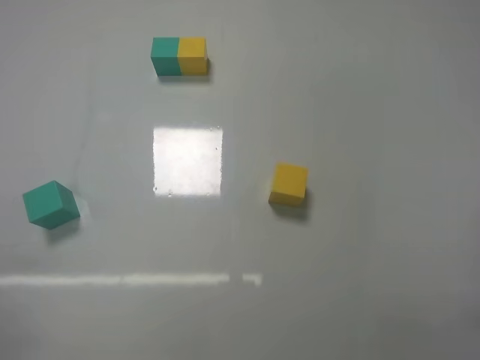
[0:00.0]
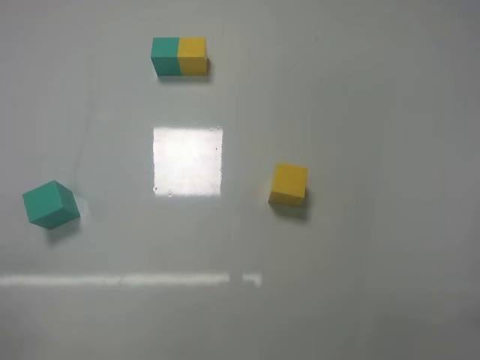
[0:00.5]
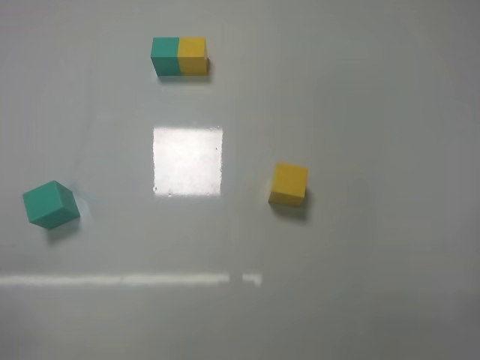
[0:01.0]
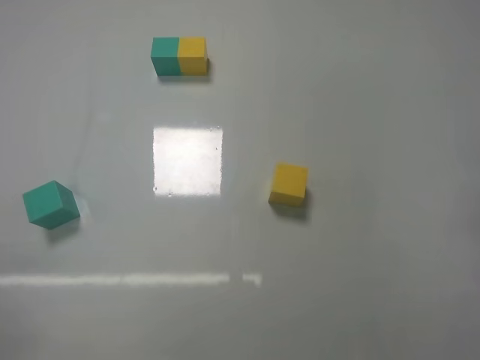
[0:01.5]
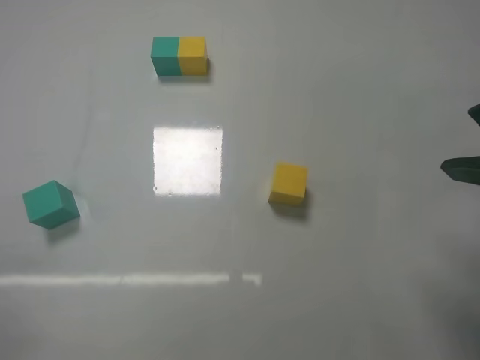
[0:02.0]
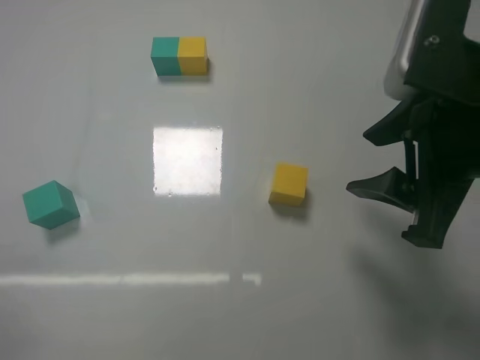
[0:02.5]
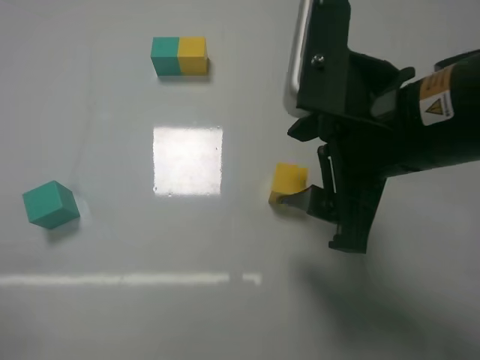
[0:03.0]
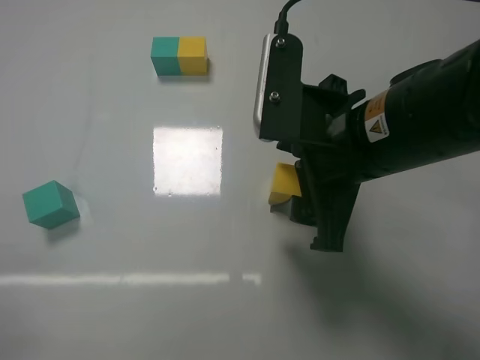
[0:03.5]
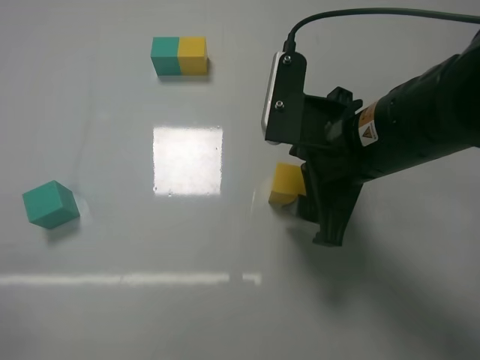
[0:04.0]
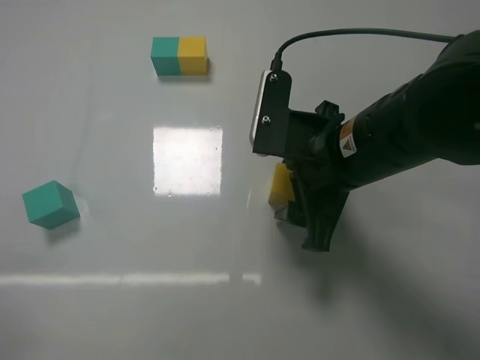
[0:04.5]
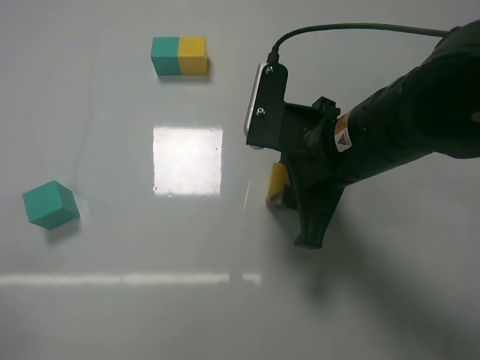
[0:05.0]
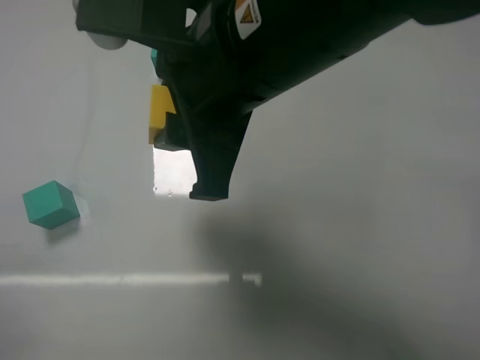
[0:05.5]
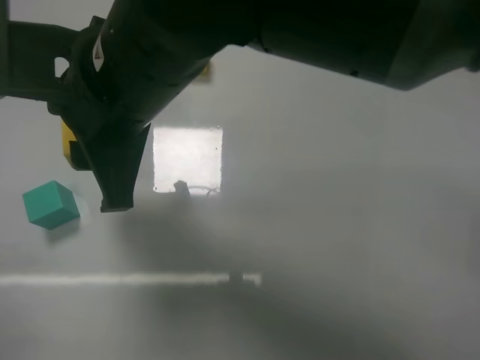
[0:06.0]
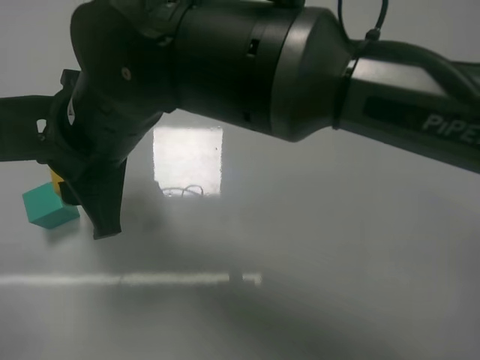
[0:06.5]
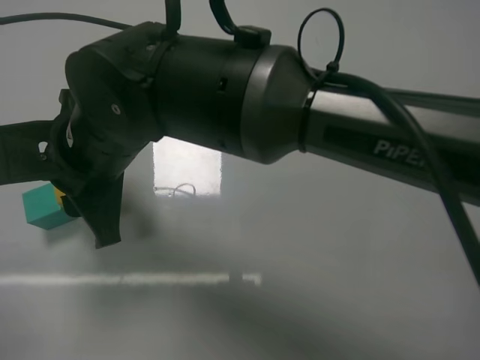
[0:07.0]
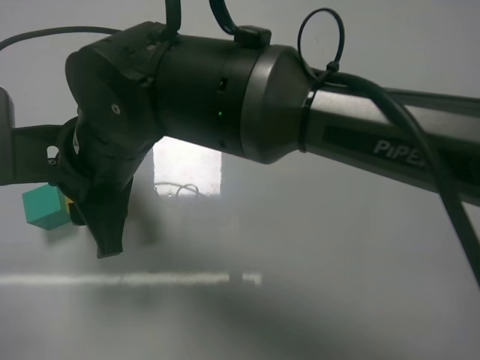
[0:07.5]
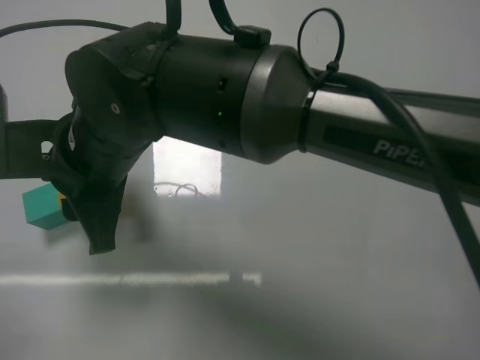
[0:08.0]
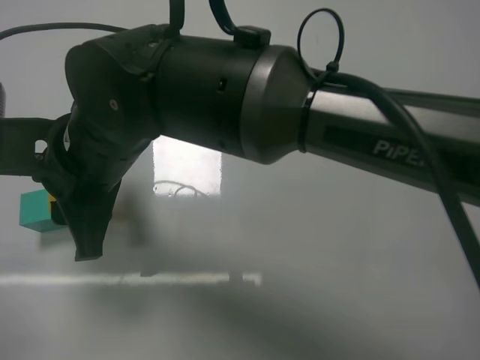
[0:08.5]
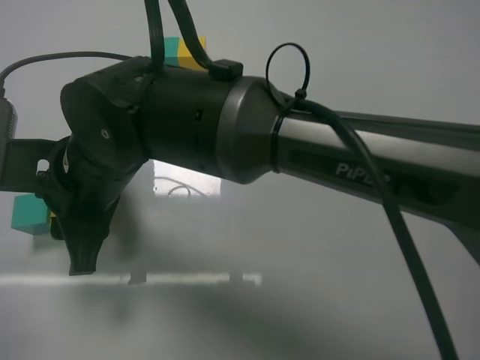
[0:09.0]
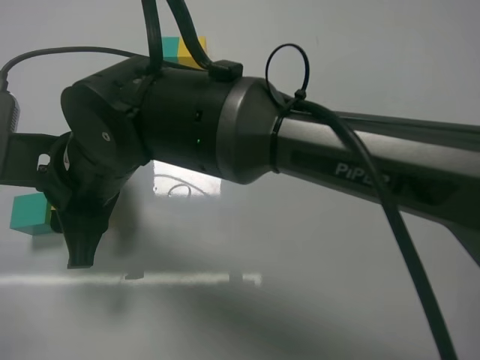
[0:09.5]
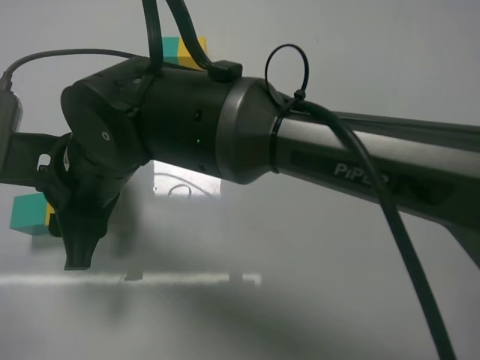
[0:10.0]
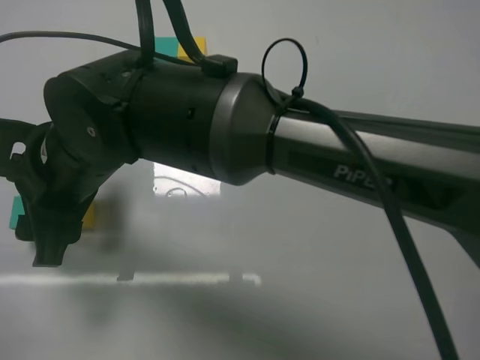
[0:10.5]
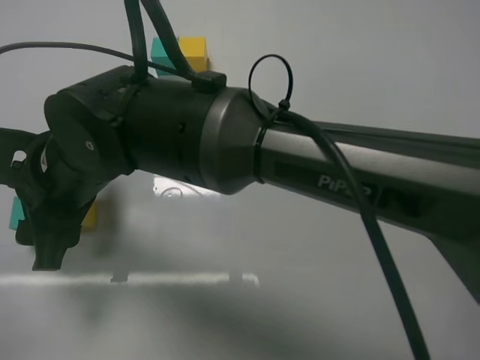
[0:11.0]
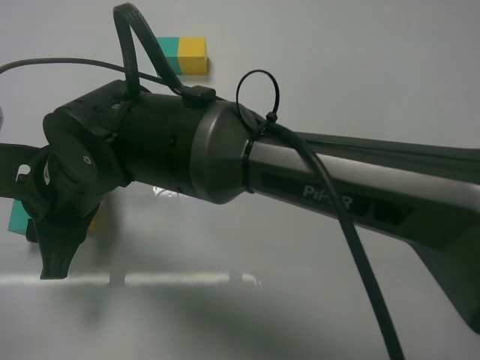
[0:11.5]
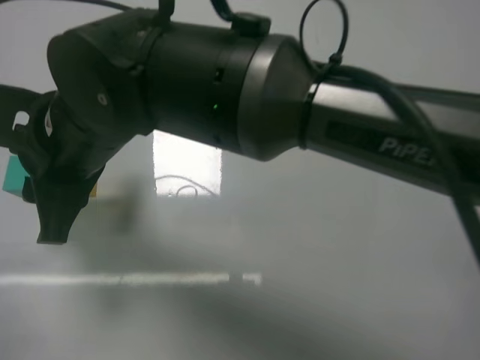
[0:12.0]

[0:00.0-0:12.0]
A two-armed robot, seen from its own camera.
Task of the whole recording: According to the building block template in front, assemble the scattered blocks together.
Step, 0:00.0 to 0:04.5: Grasp the yellow block with right gripper.
Step, 0:05.0 to 0:10.0: Put the yellow cube on the right of the green cube with the right gripper.
0:00.0 to 0:02.0: The right gripper goes roughly 20 cm forward, upward and to the left.
0:02.0 to 0:04.0: The right gripper shifts roughly 15 cm to the left, forward and downward, and opens up.
0:04.0 to 0:06.0: The right gripper goes roughly 20 cm to the left, and closes its fingers.
0:06.0 to 0:08.0: The right gripper moves downward, some 5 cm.
0:10.0 to 0:12.0: The right gripper shifts by about 5 cm, and opens, then closes once more.

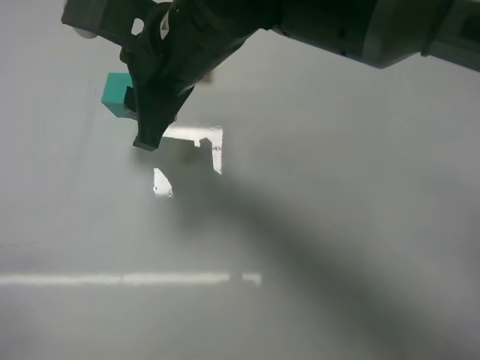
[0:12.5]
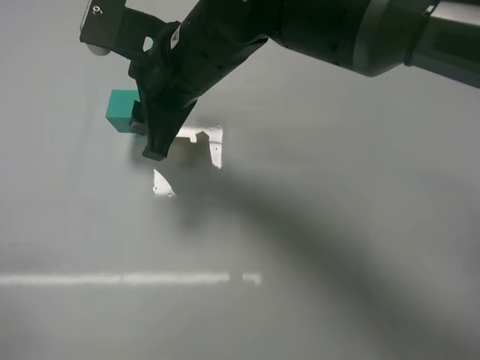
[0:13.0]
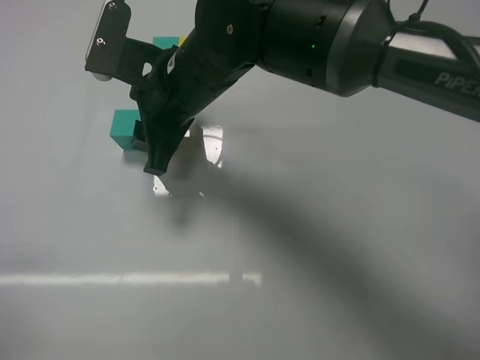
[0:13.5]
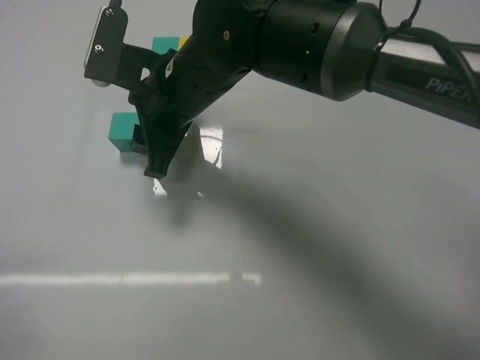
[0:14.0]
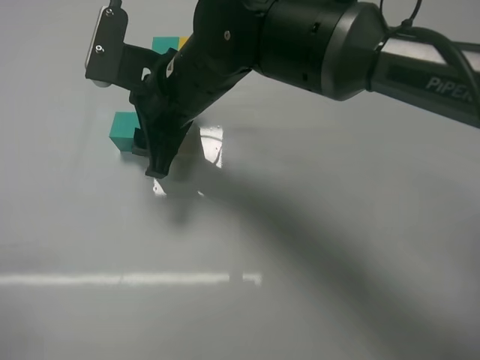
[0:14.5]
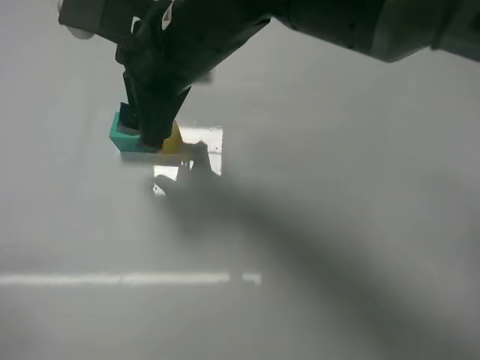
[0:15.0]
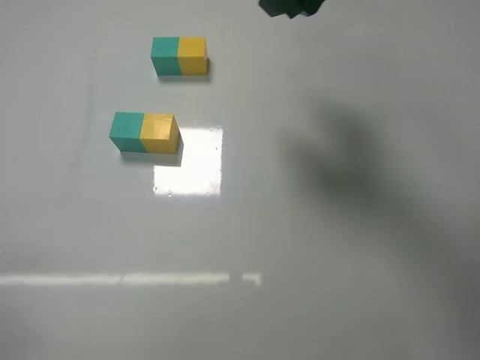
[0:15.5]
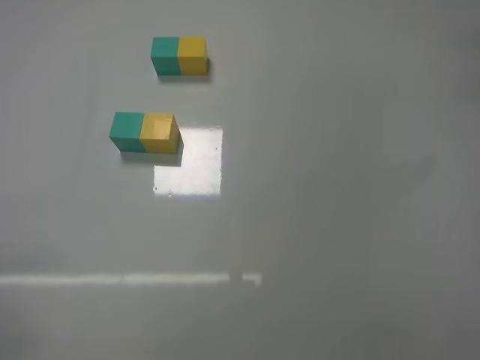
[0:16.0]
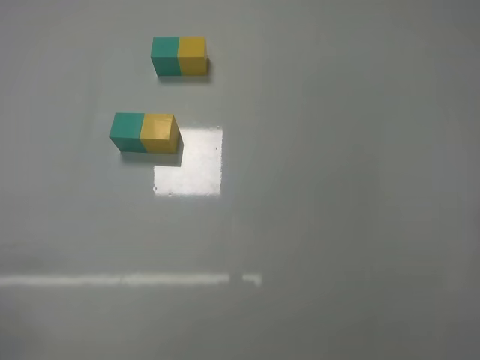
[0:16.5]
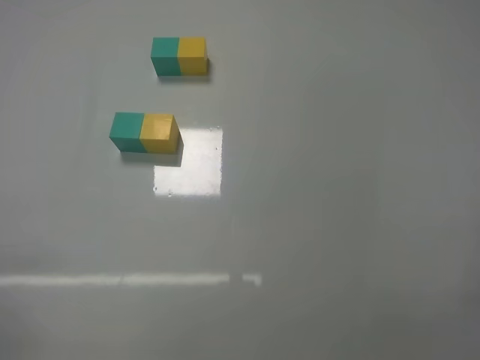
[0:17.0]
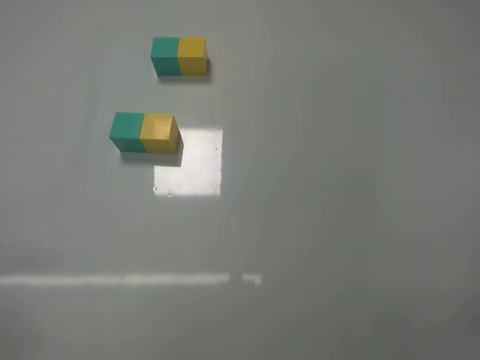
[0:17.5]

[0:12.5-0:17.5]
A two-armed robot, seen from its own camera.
Task of the whole recording: According to the building block template in front, assemble the scattered blocks together.
Step, 0:12.5 to 0:14.5: Put the yellow cube and green cube in the center of the table with the right gripper.
0:12.5 to 0:15.0: The right gripper opens up.
0:15.0 to 0:17.5: The right gripper goes roughly 40 cm to the right and backward.

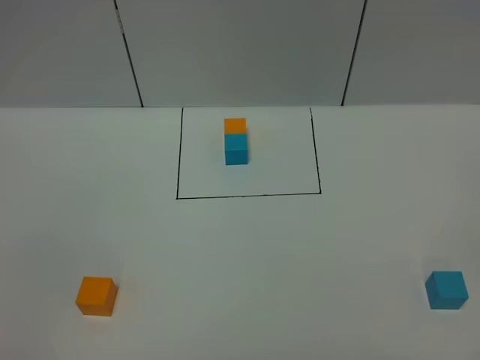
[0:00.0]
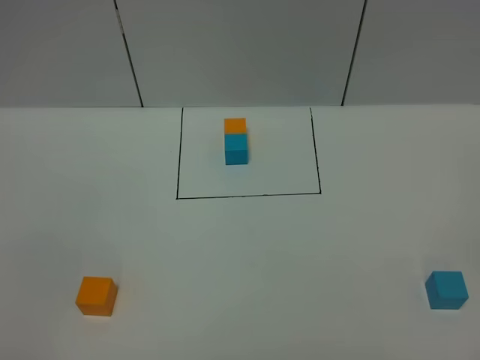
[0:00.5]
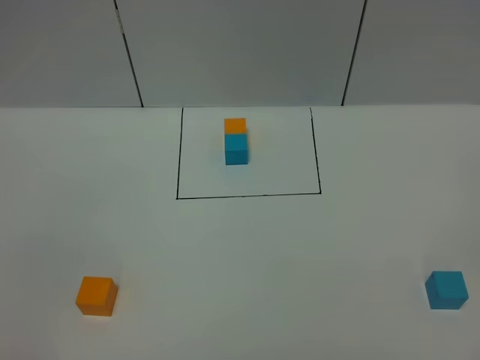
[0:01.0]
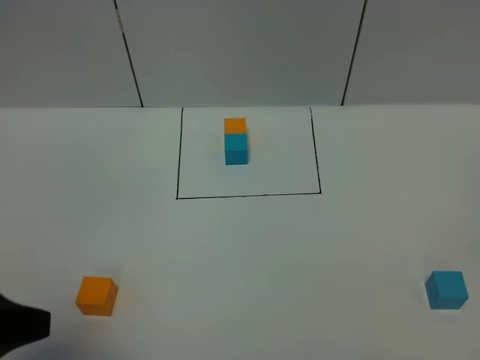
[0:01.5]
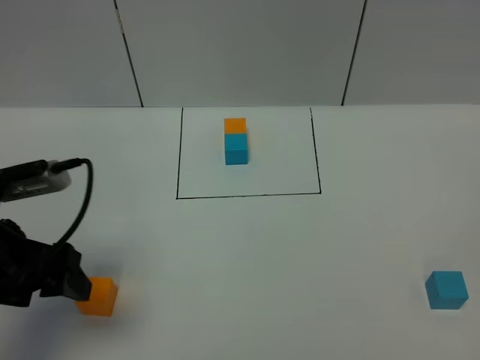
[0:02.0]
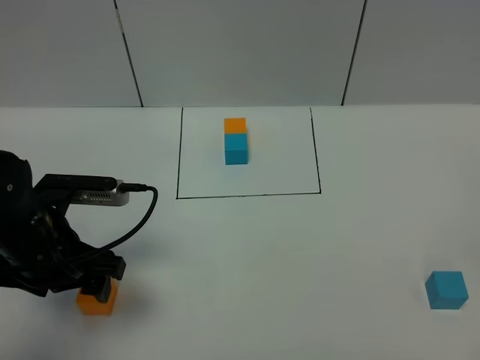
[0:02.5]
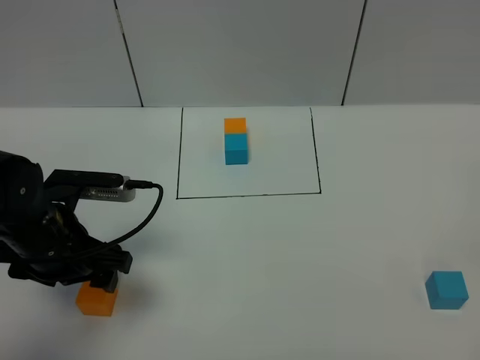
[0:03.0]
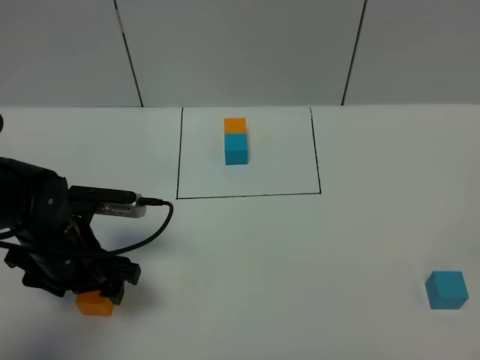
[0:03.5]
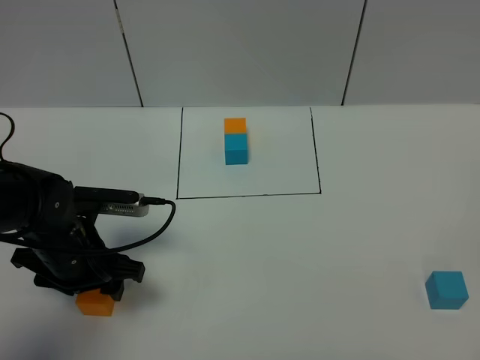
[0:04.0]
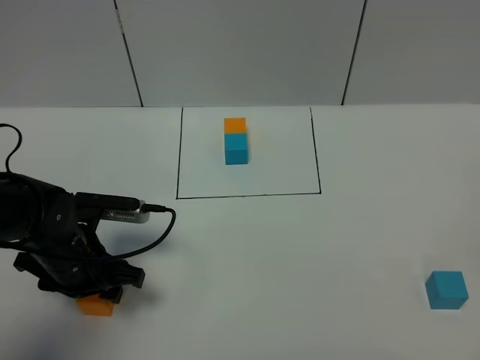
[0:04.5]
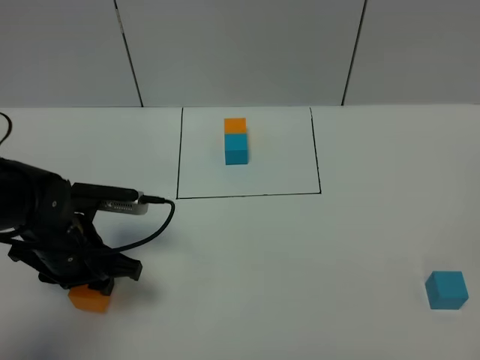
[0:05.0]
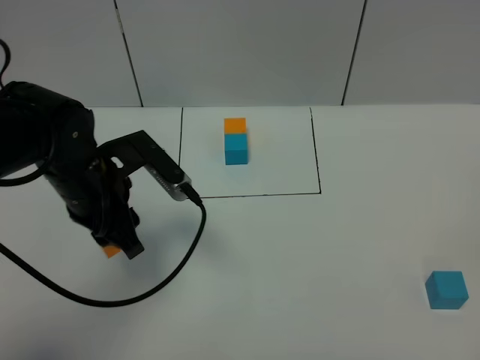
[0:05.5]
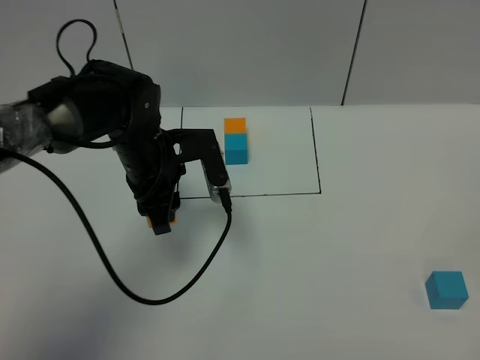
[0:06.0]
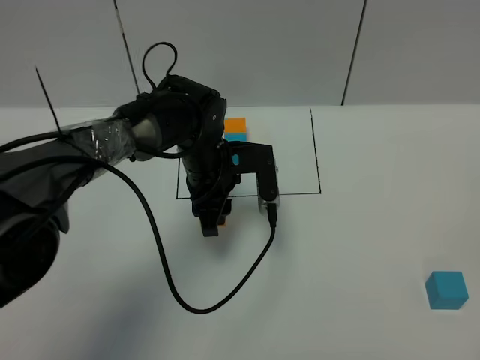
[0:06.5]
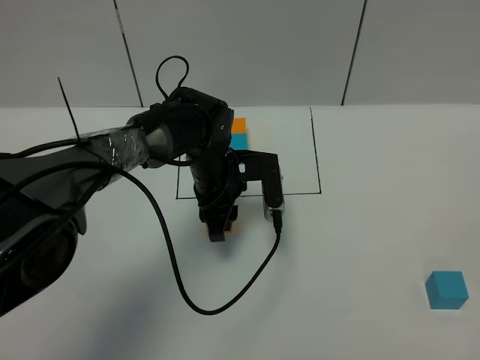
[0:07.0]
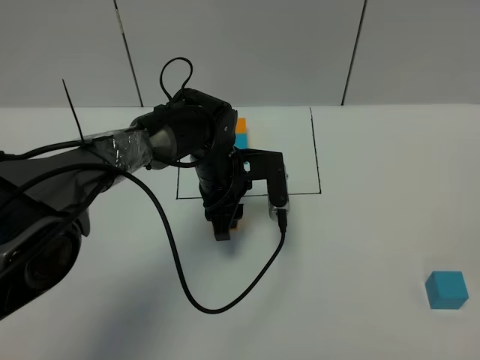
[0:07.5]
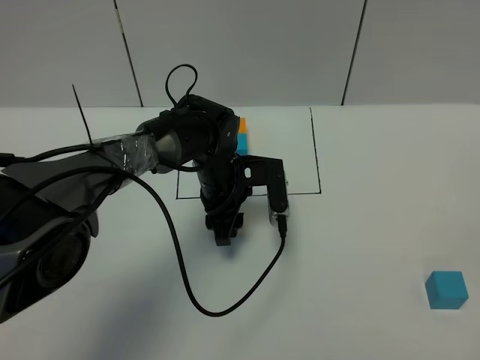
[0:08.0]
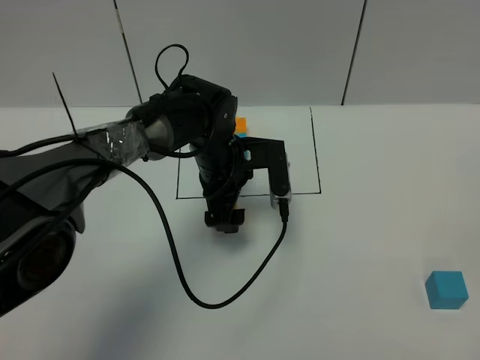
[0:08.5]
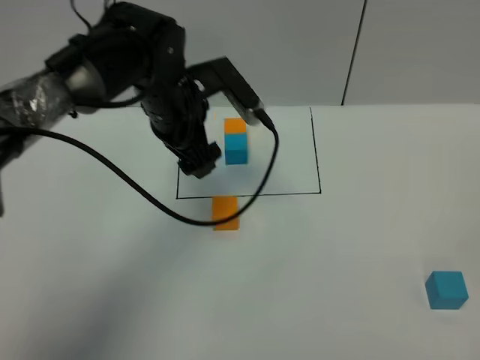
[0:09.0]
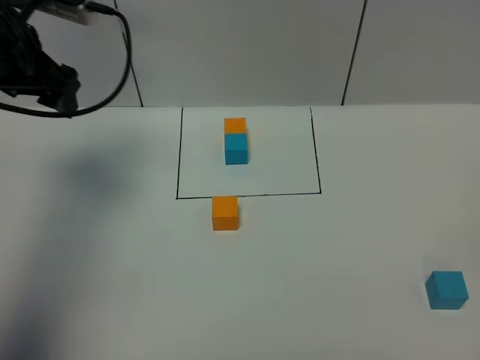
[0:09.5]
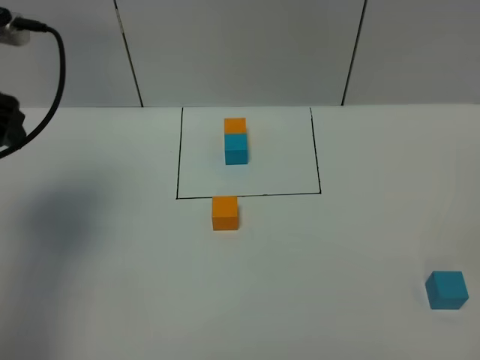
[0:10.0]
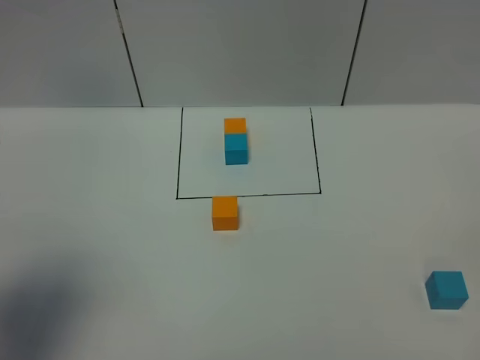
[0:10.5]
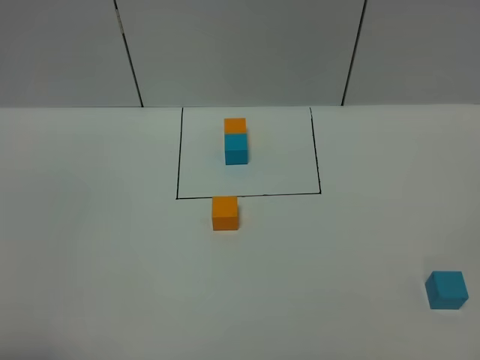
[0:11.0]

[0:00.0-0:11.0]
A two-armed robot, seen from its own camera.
Task of the whole recording: According to the building block template in front, assemble the scattered blocks together.
Step, 0:01.5 to 0:08.5: Put the orange cube in the center of the table.
0:00.0 to 0:02.0: The left gripper shifts approximately 20 cm forward.
0:02.0 to 0:03.5: The left gripper travels downward and forward by some 10 cm.
0:03.5 to 0:05.5: The left gripper travels upward by some 5 cm, and closes its fingers.
0:05.5 to 0:07.5: The left gripper shifts approximately 20 cm to the right, forward and downward.
0:07.5 to 0:09.0: The left gripper is displaced upward by roughly 10 cm, and opens up.
0:09.0 to 0:11.0: The left gripper heads backward and to the left, covering about 40 cm.
